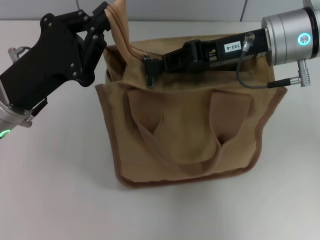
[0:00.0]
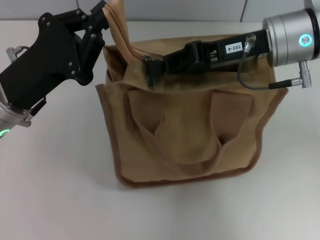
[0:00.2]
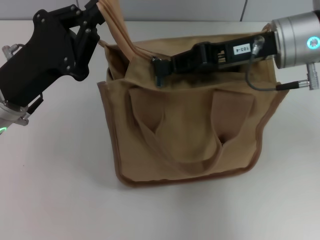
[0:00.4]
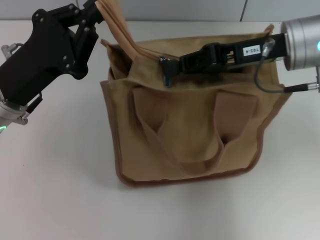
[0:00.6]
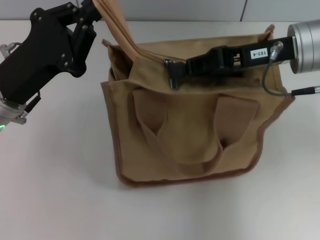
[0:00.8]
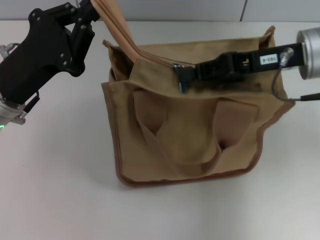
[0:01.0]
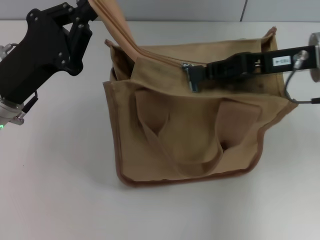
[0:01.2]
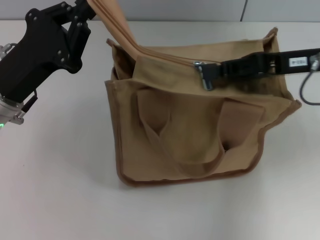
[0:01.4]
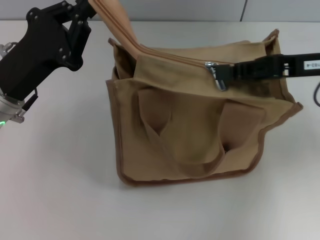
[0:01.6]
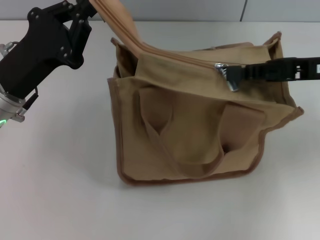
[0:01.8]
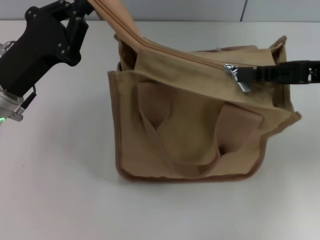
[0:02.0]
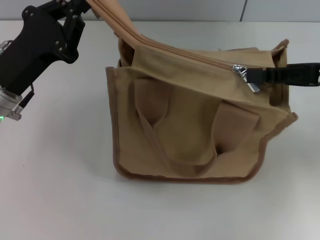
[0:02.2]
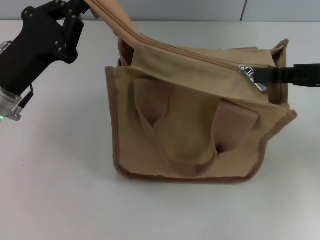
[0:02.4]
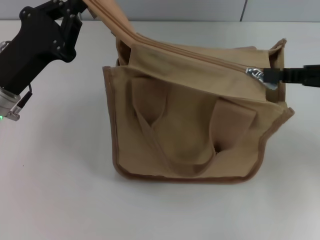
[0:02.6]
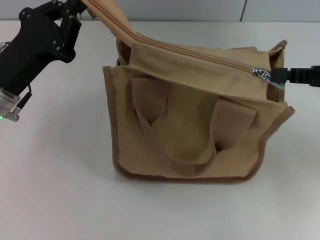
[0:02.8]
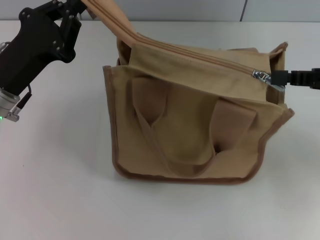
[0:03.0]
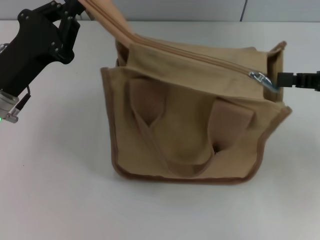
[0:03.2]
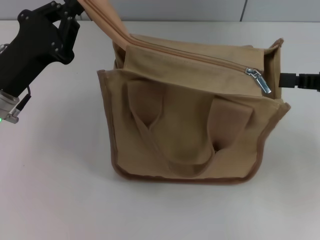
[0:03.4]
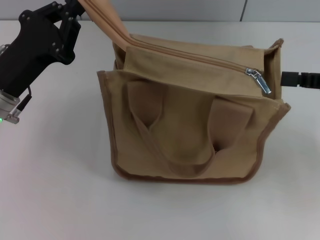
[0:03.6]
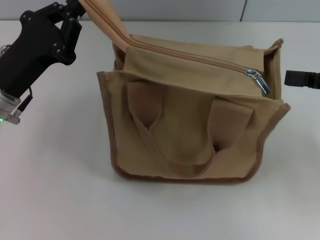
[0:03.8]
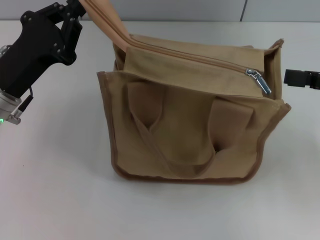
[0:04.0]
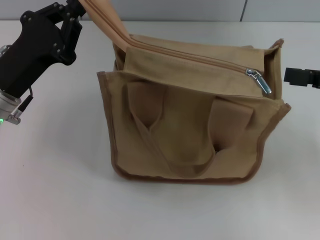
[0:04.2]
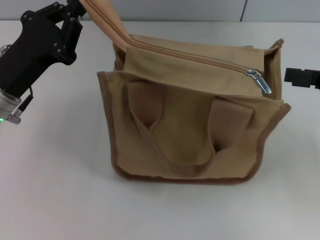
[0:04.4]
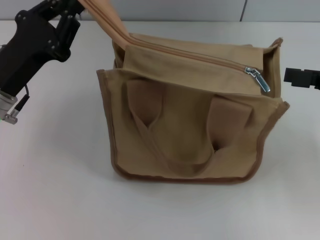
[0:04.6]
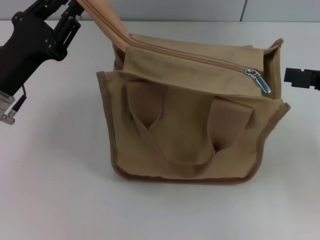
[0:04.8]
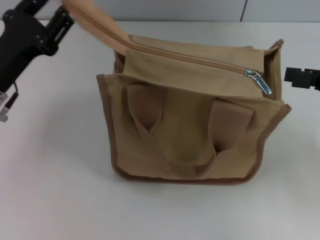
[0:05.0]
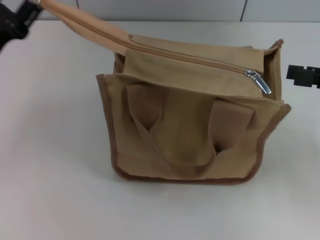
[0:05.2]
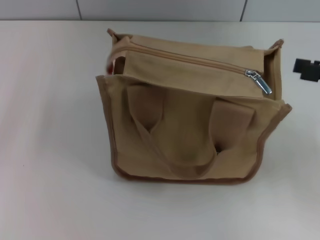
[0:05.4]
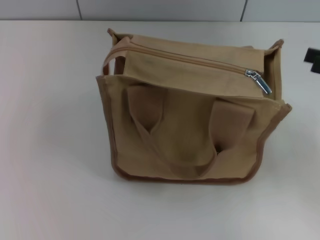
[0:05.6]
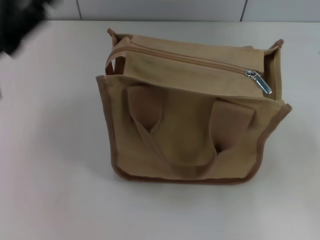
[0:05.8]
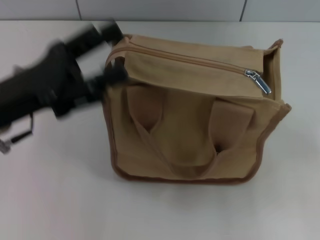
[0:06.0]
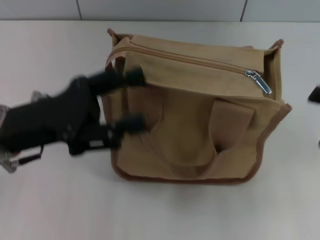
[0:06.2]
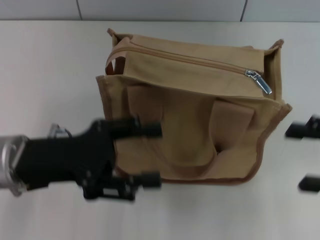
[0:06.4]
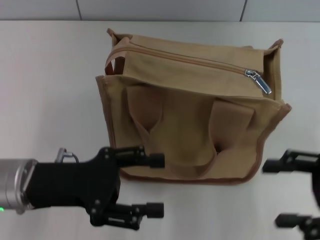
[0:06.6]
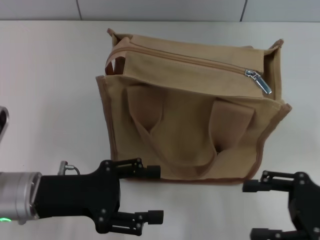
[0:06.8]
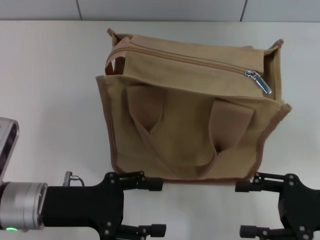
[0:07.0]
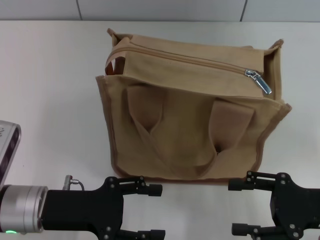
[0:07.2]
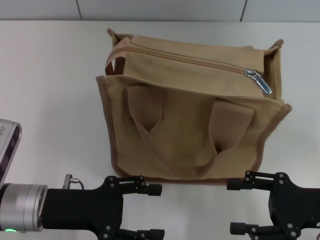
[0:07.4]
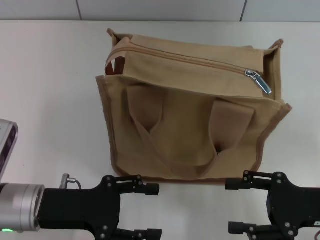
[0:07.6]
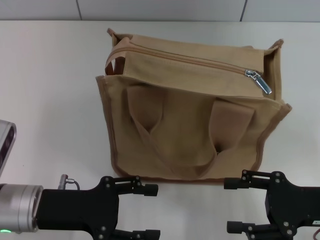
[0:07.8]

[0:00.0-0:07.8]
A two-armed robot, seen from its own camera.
Step, 0:00.0 to 0:03.4: Pull up the zipper with your right hand.
Step, 0:03.6 to 0:05.8: Grab the zipper with your left hand.
0:00.0 to 0:01.6: The right gripper shifts about 10 cm to the right.
0:01.6 to 0:03.2: The right gripper goes some 5 cm to the right.
0:03.2 to 0:04.6: The right gripper opens.
0:04.6 to 0:06.2: The right gripper travels backward by some 5 cm; the left gripper moves some 5 cm to the left and comes back, and opens up.
0:06.2 to 0:07.8: The left gripper goes about 10 cm downward; the right gripper shifts approximately 10 cm downward and to the left.

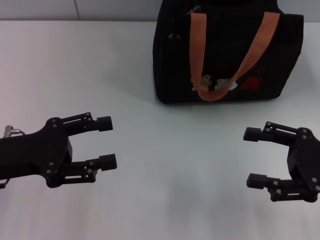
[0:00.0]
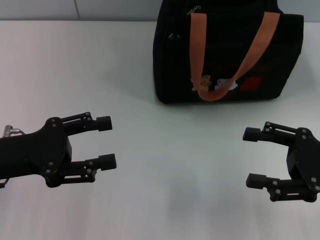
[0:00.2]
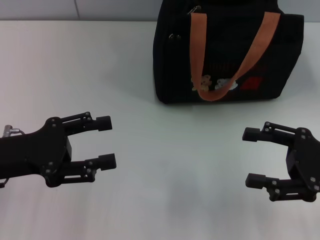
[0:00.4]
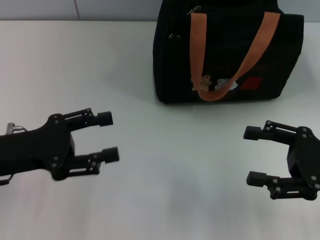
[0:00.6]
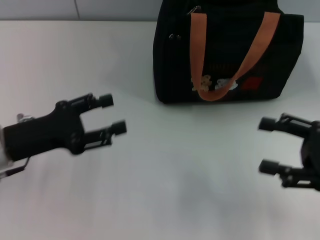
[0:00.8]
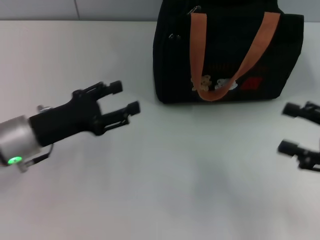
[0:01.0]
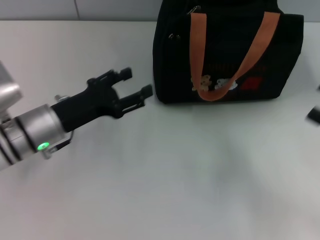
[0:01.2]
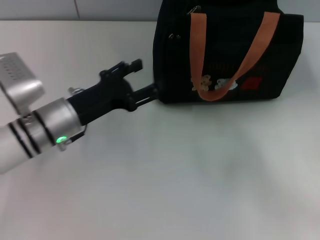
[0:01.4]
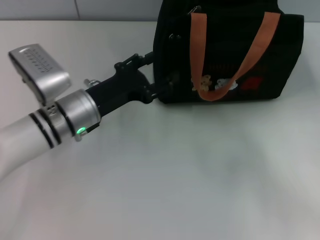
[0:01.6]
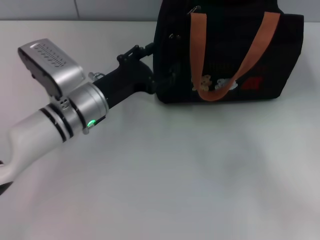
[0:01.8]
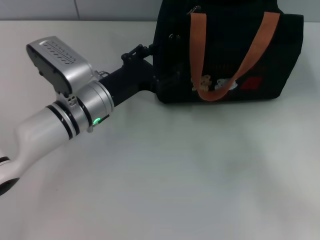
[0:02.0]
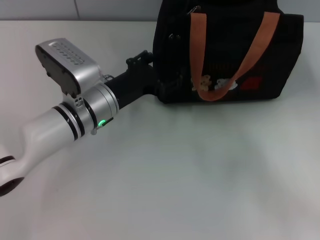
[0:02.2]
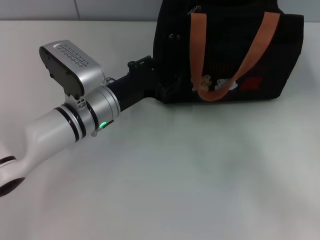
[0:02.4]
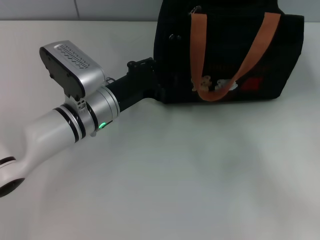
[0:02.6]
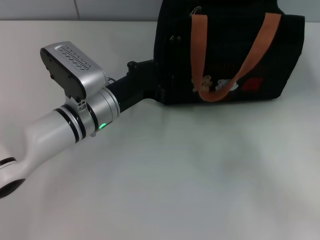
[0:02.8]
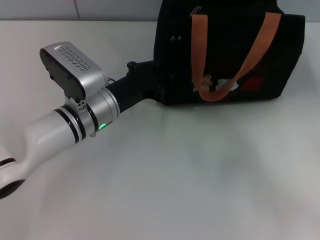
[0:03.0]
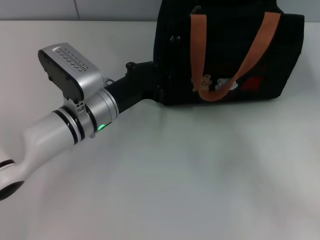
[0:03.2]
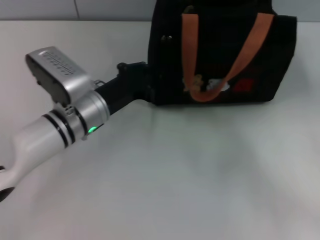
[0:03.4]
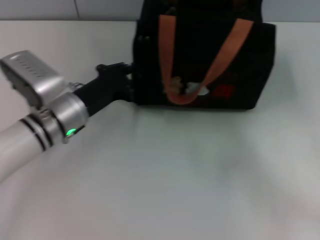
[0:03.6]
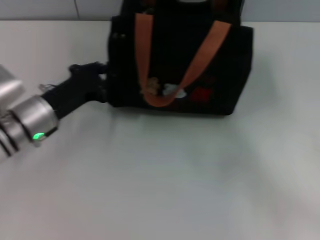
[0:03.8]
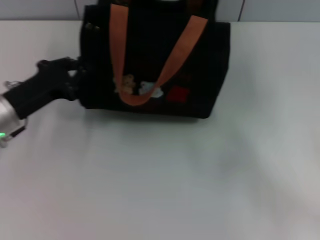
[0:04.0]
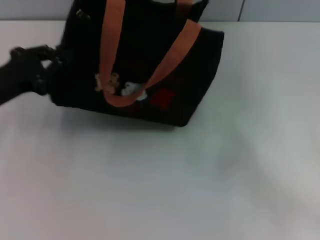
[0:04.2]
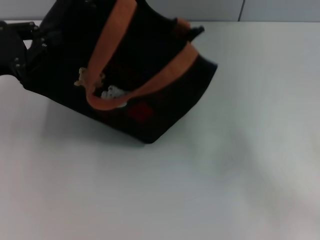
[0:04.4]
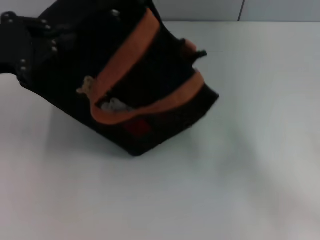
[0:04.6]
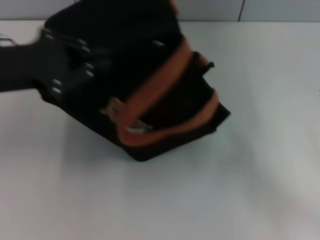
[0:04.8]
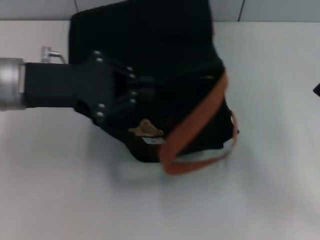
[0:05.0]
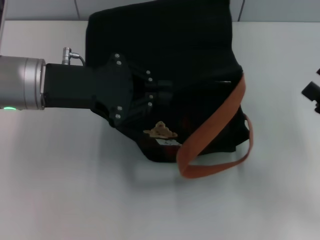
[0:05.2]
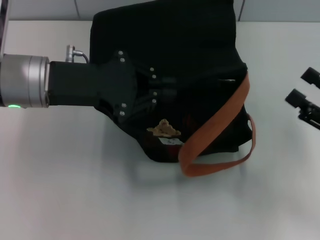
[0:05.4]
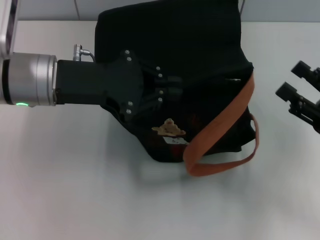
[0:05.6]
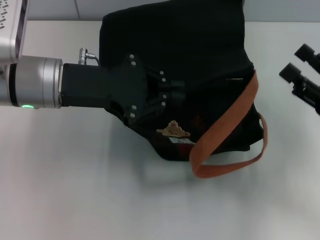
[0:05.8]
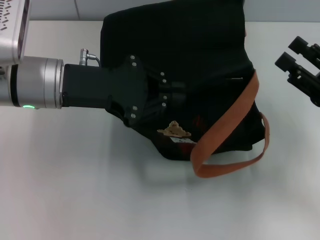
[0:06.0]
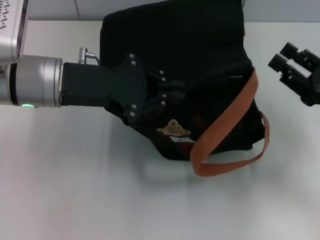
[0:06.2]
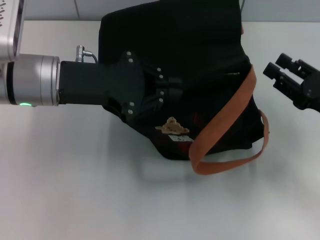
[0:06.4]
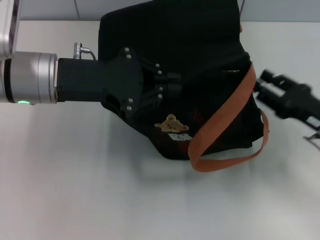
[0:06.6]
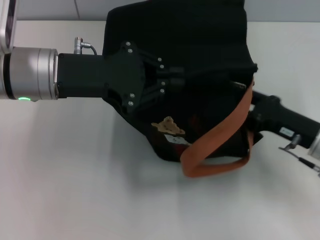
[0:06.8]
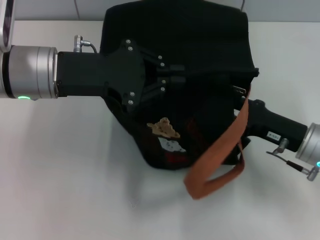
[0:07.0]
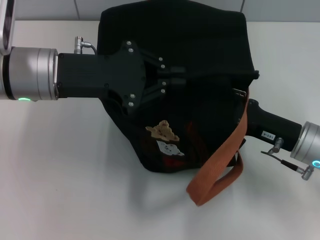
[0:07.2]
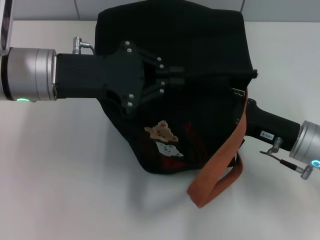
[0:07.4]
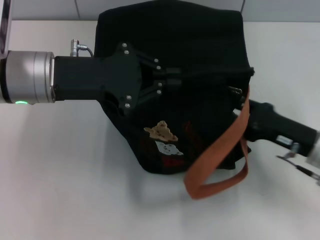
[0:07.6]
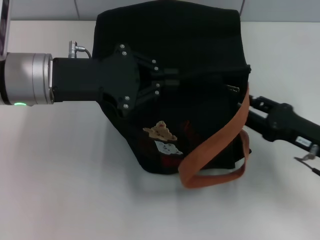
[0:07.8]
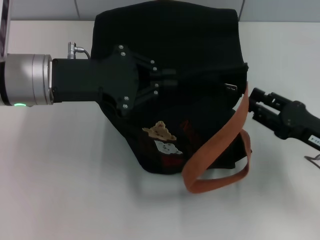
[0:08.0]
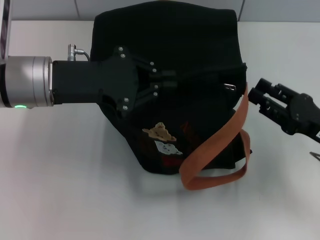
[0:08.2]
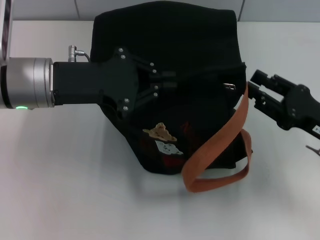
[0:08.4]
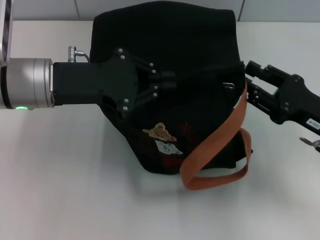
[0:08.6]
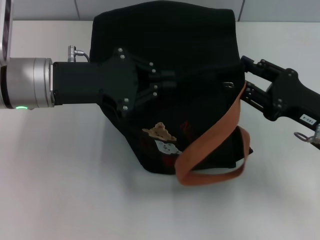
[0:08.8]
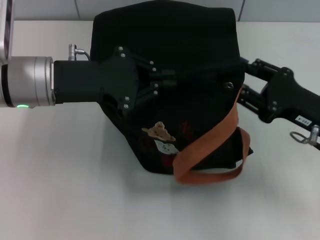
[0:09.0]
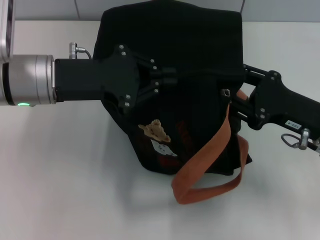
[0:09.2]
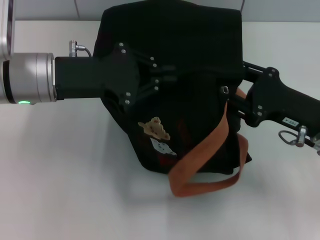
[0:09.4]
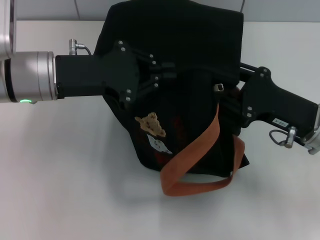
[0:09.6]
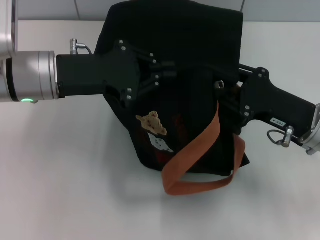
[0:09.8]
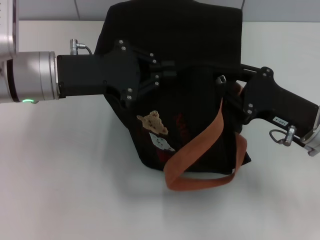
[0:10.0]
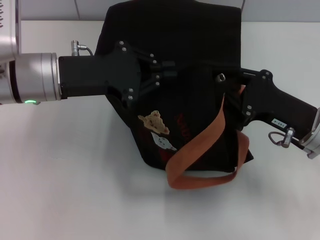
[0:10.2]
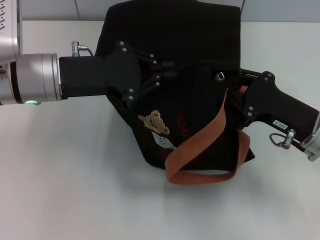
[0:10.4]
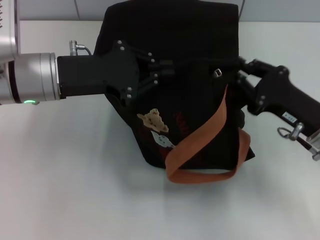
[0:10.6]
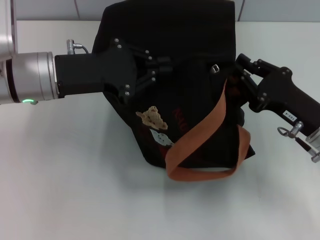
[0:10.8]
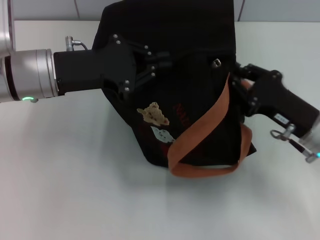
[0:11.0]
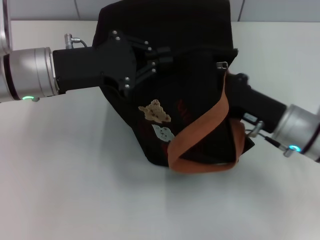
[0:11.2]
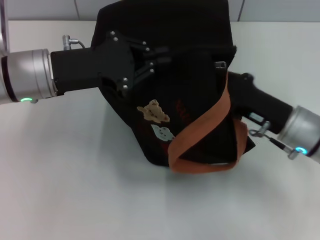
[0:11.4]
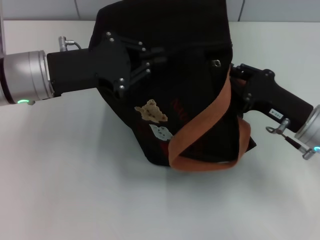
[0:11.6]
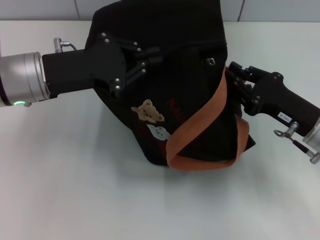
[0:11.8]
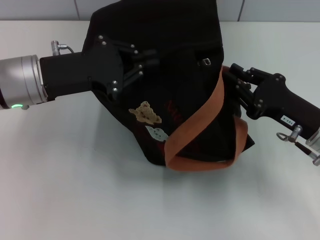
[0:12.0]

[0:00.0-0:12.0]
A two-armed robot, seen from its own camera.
0:00.0 to 0:01.6: The right gripper travels to the right by approximately 5 cm. Meanwhile the left gripper shifts approximately 15 cm to the right, forward and downward.
0:01.6 to 0:03.0: The left gripper closes.
0:03.0 to 0:04.4: The left gripper travels to the left and upward by approximately 20 cm.
0:04.4 to 0:06.0: The left gripper moves to the right, roughly 15 cm, while the right gripper changes place by about 5 cm.
0:06.0 to 0:07.6: The right gripper shifts by roughly 5 cm.
0:09.0 to 0:10.4: The grippers make only small movements.
0:10.4 to 0:12.0: The grippers stay close to where they were, moving slightly.

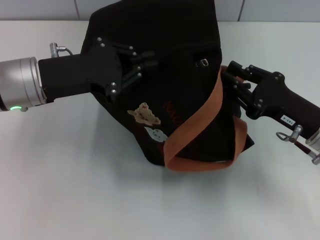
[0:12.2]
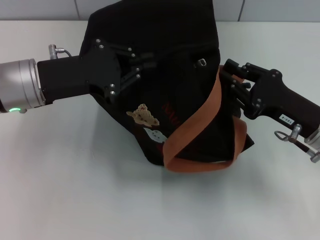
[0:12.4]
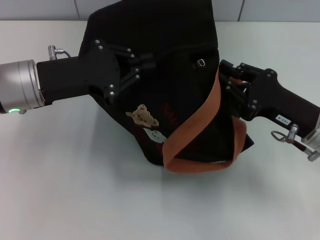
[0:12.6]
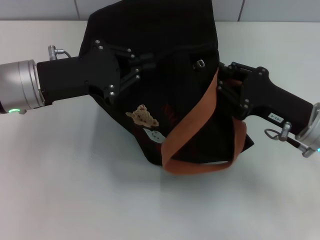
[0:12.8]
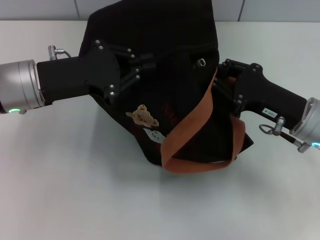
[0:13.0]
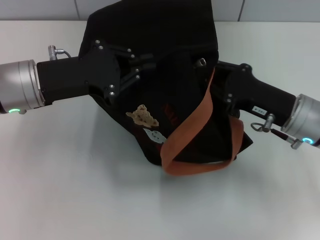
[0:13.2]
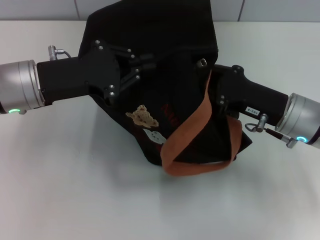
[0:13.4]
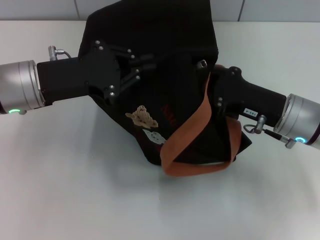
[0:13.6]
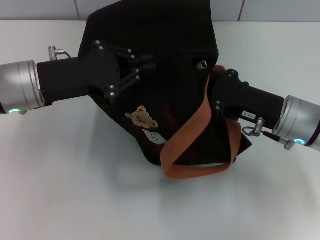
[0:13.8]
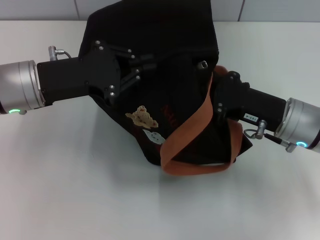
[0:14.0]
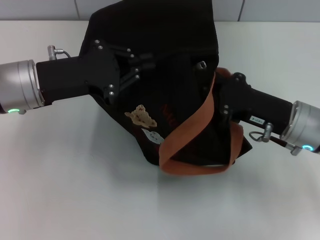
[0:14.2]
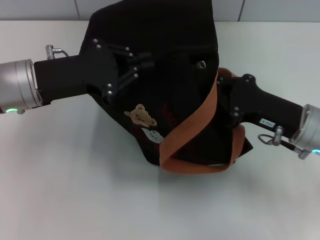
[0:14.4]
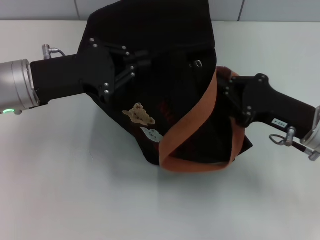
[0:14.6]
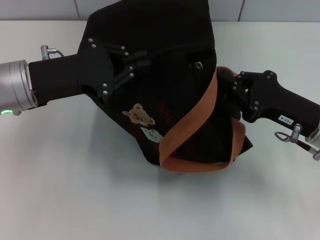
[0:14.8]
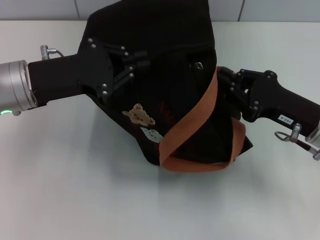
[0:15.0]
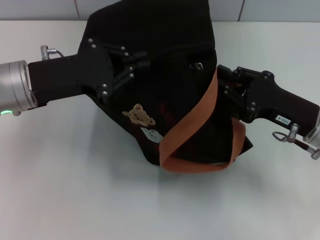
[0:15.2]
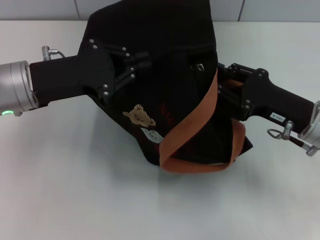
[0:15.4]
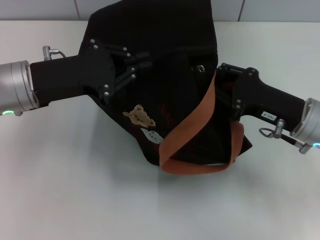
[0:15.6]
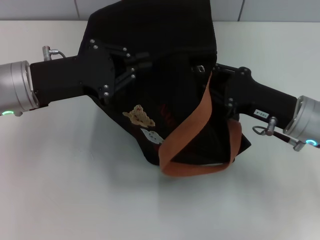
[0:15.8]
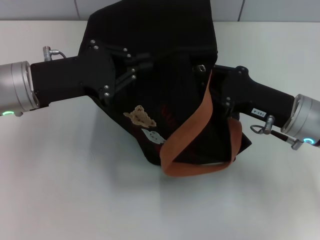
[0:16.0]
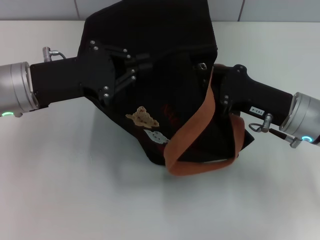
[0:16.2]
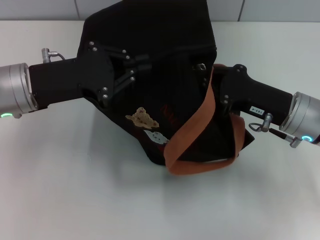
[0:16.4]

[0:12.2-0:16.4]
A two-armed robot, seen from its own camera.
0:12.2 to 0:13.6: The right gripper changes place by approximately 5 cm.
0:13.6 to 0:16.4: The grippers stay close to where they were, moving slightly.
